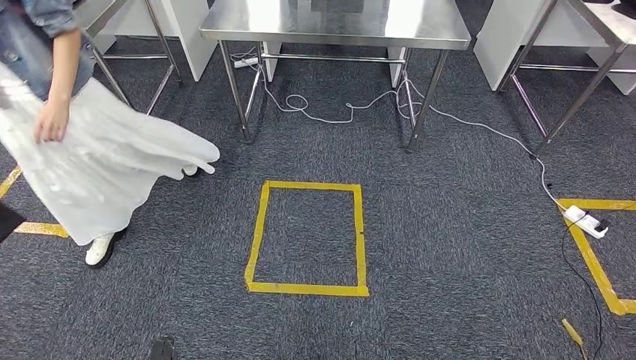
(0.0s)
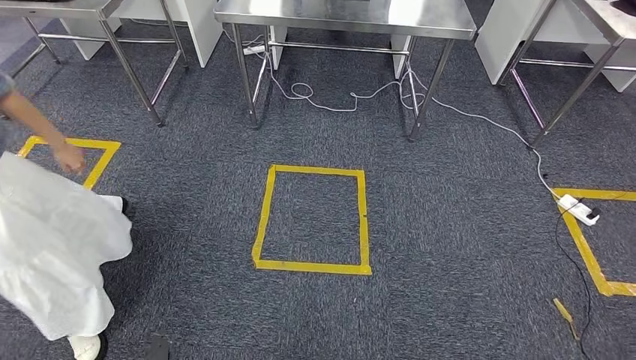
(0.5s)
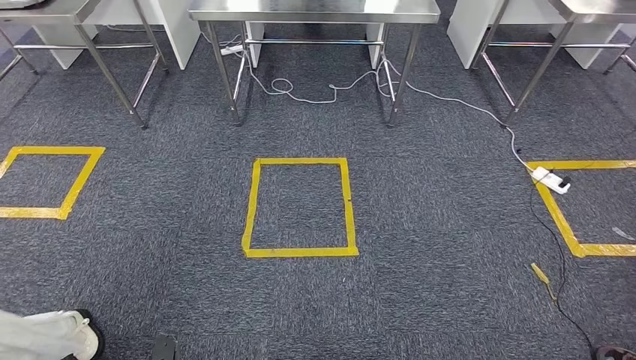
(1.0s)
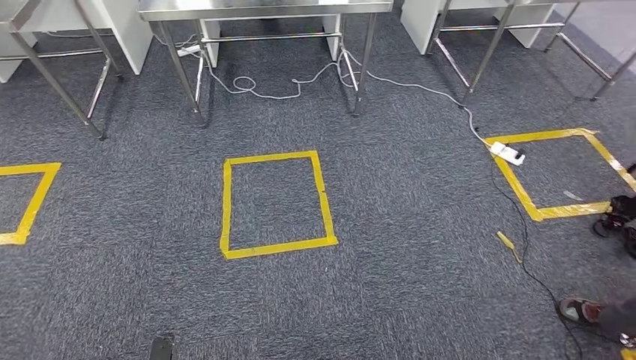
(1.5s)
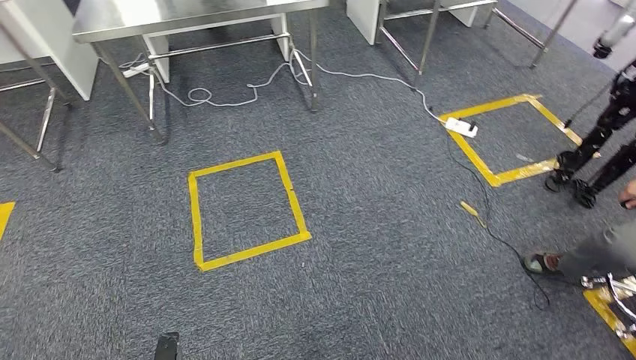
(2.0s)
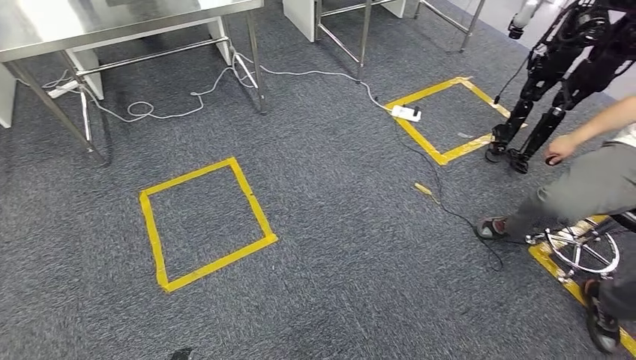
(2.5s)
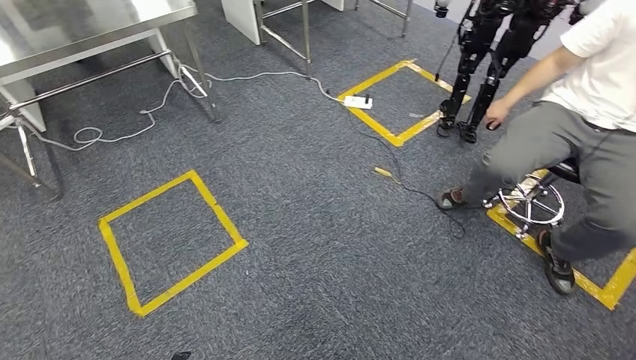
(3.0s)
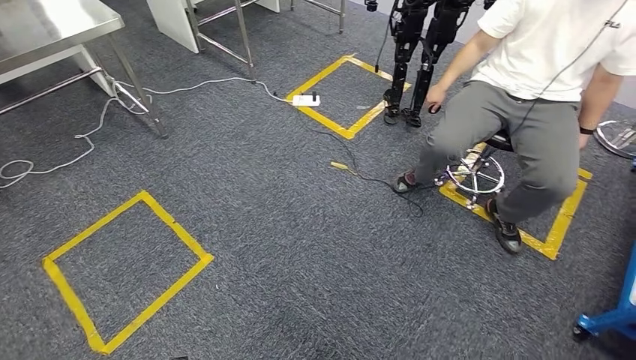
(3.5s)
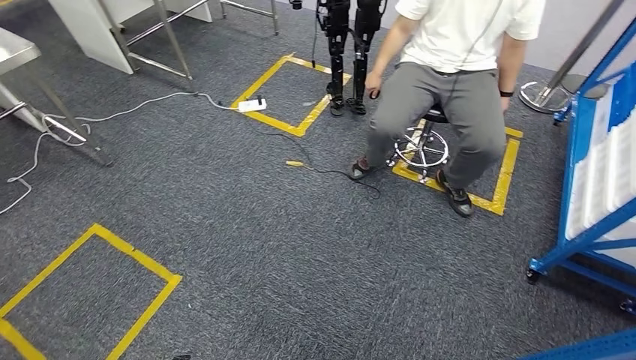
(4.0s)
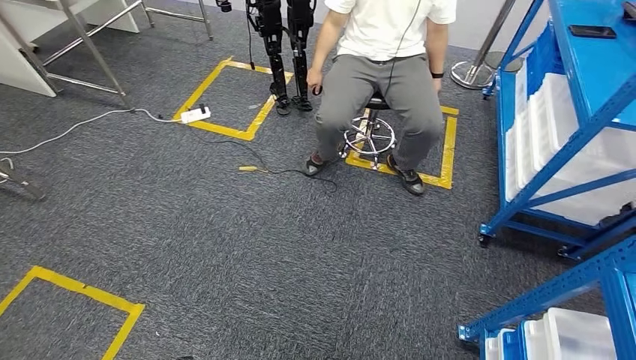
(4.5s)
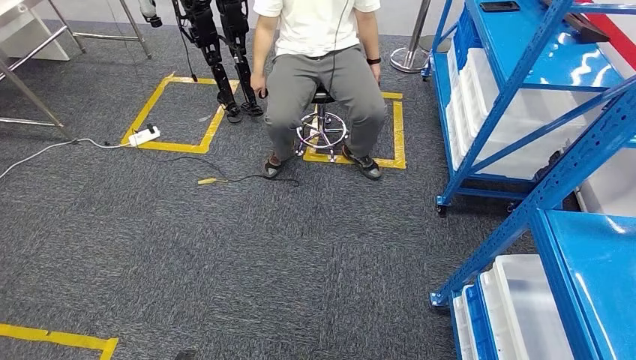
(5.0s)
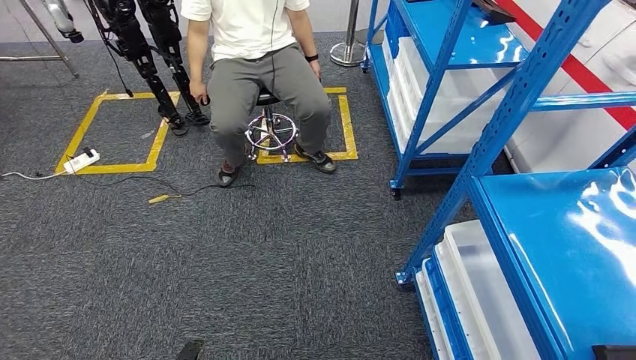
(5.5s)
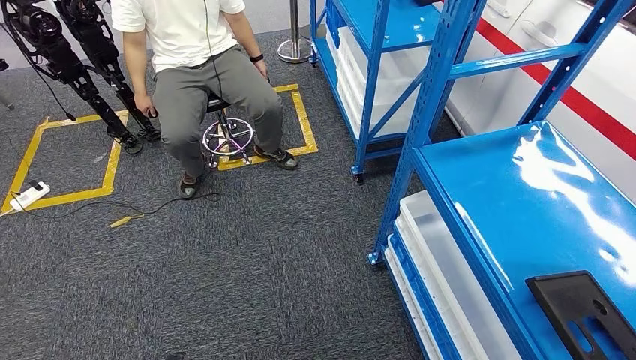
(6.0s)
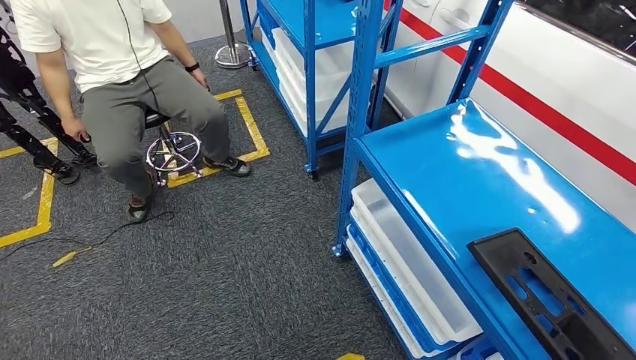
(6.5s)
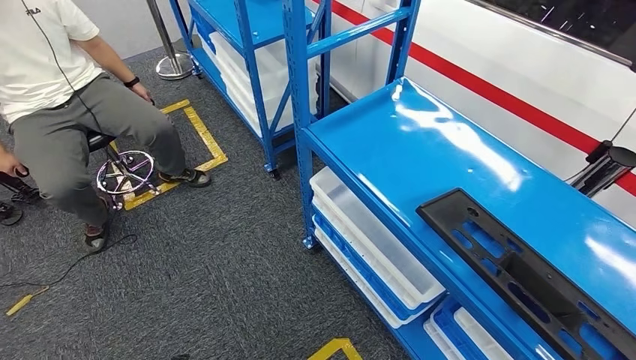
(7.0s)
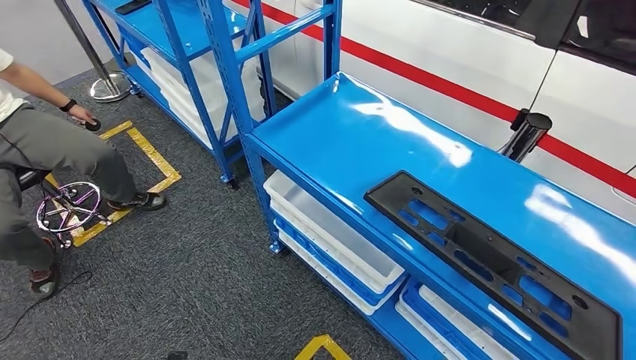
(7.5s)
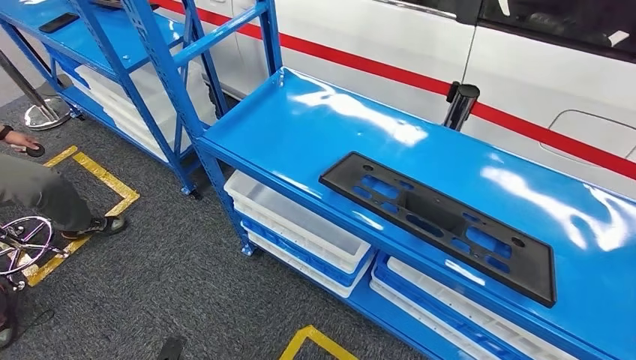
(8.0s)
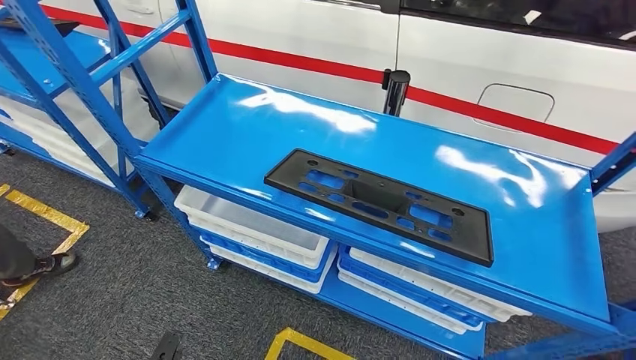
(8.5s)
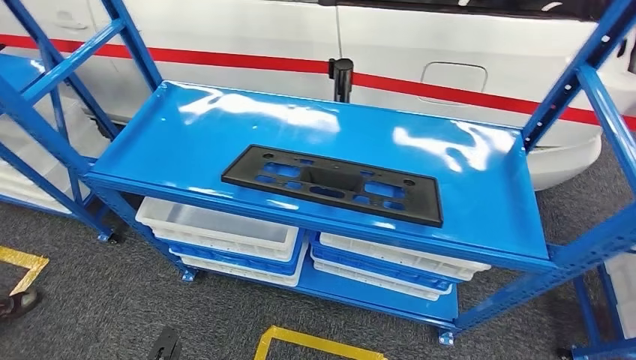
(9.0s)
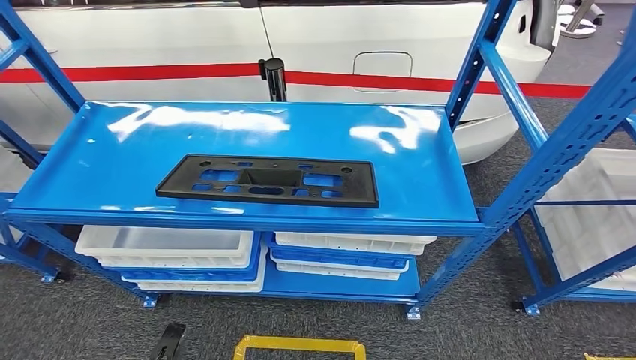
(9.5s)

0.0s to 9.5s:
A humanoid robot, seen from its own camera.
Step, 0.0s to 9.5s: Move to the initial position of the shelf.

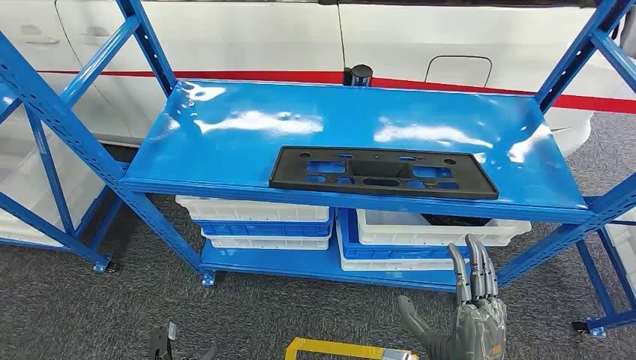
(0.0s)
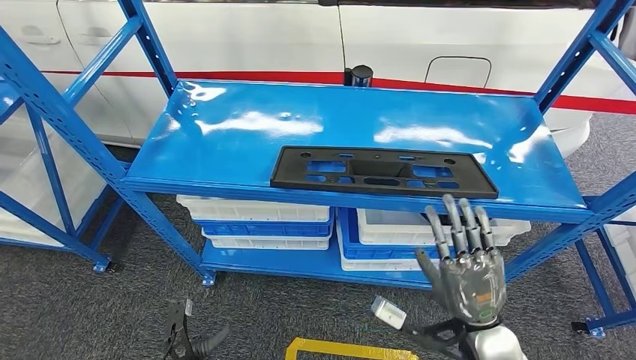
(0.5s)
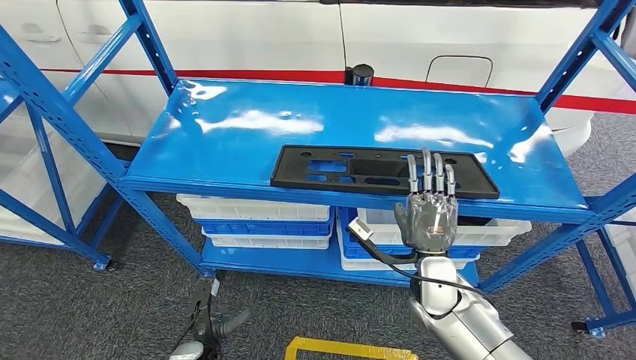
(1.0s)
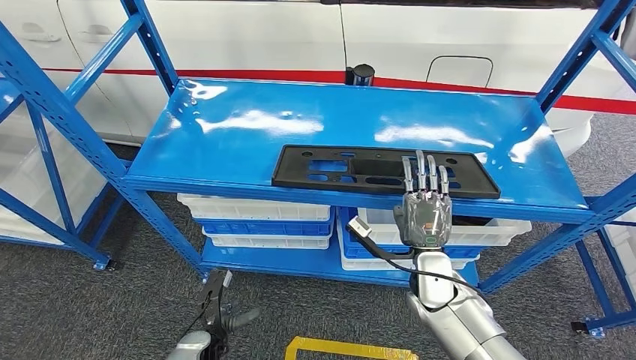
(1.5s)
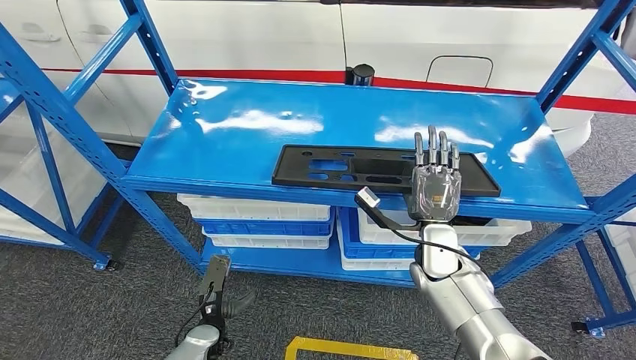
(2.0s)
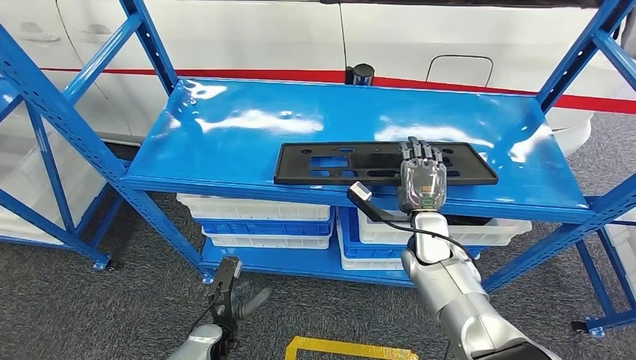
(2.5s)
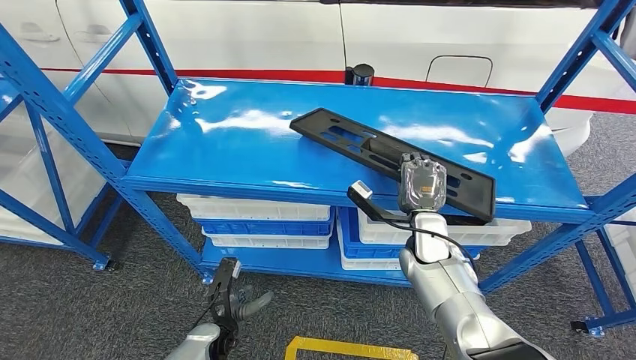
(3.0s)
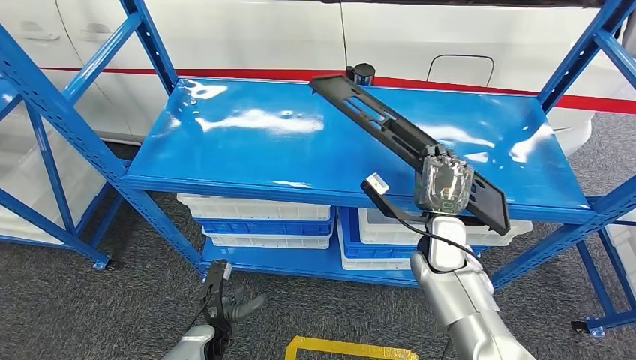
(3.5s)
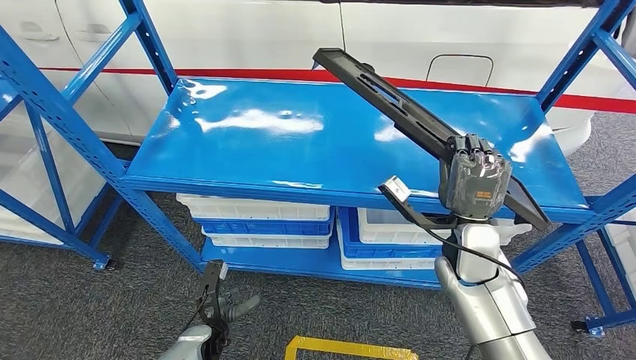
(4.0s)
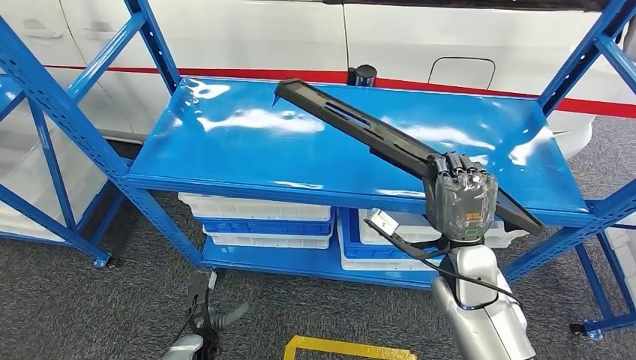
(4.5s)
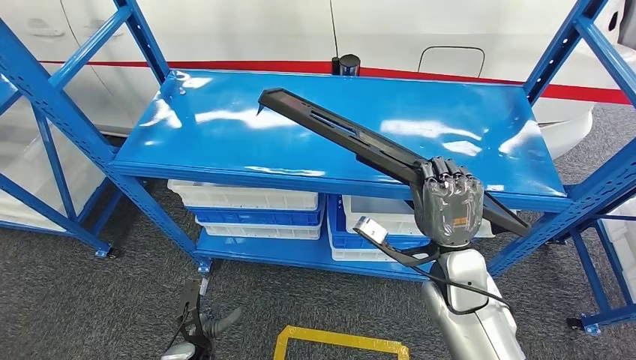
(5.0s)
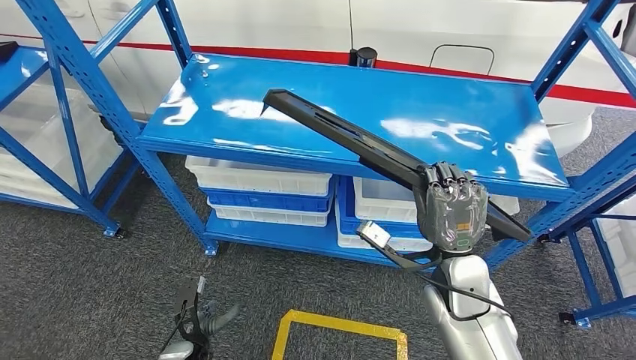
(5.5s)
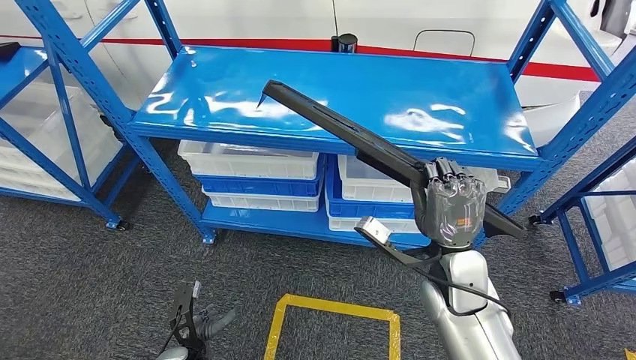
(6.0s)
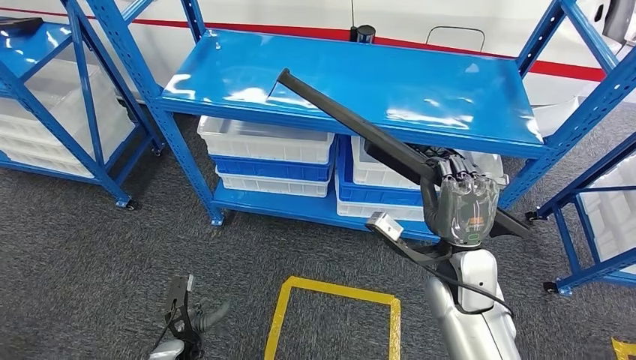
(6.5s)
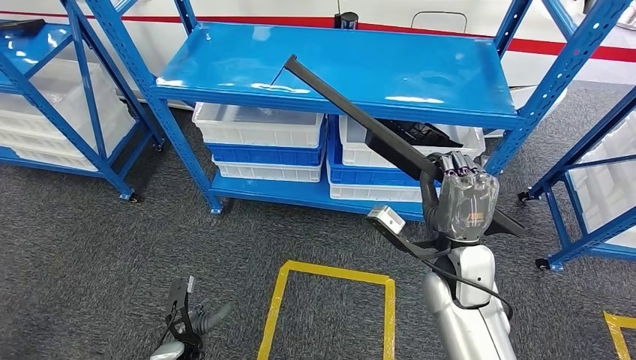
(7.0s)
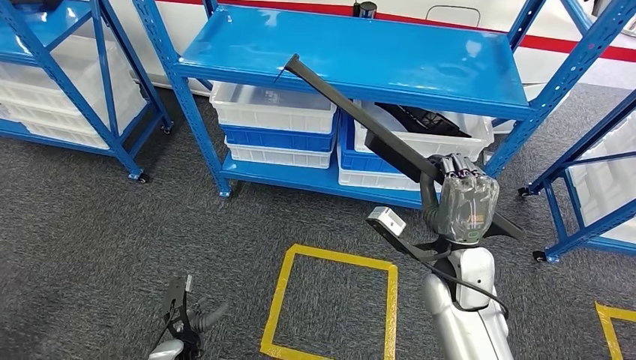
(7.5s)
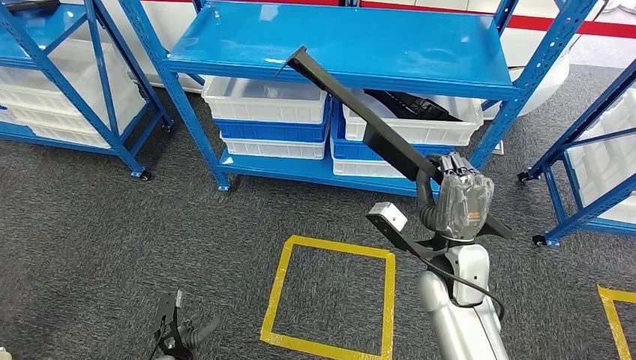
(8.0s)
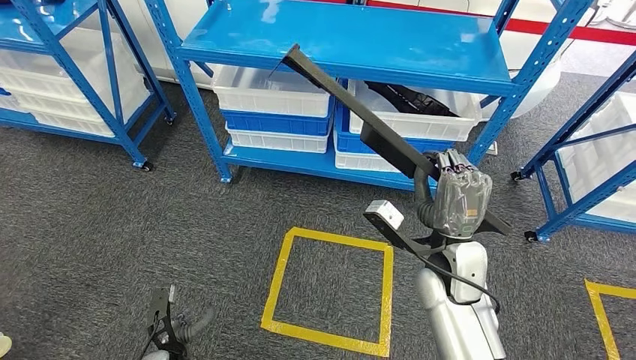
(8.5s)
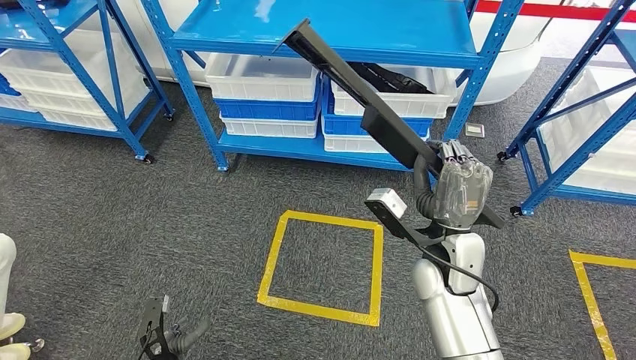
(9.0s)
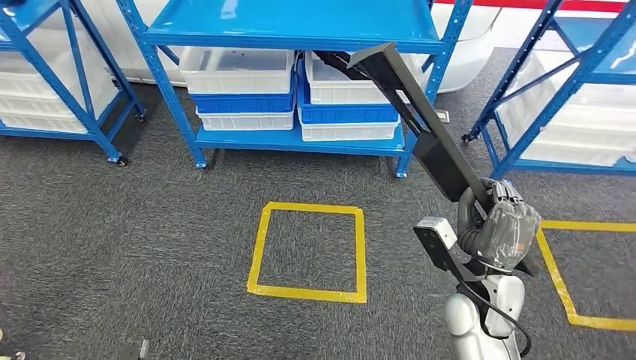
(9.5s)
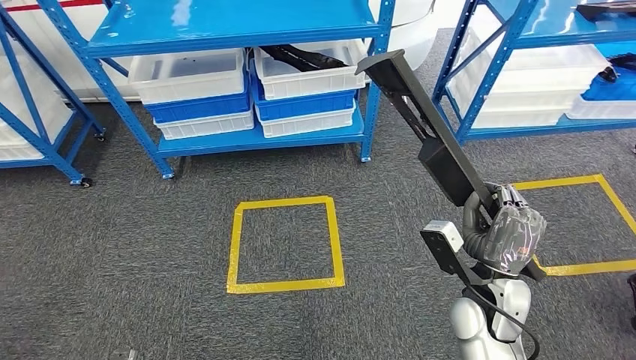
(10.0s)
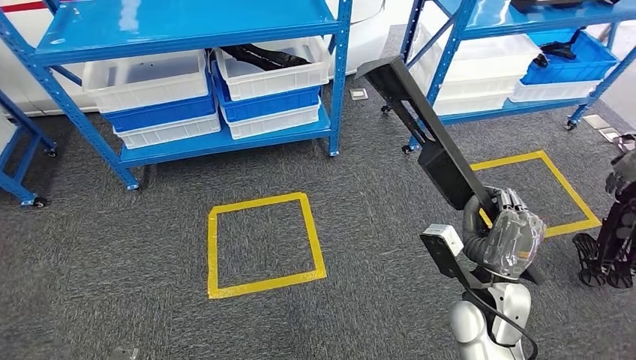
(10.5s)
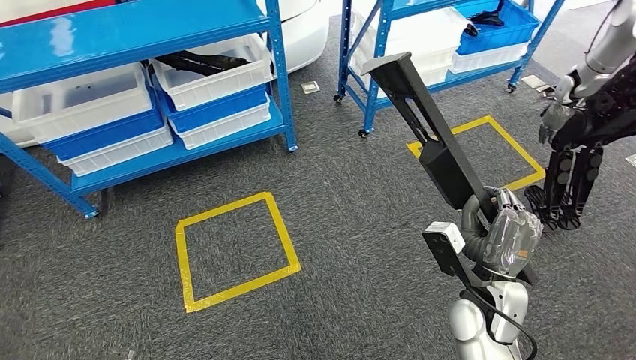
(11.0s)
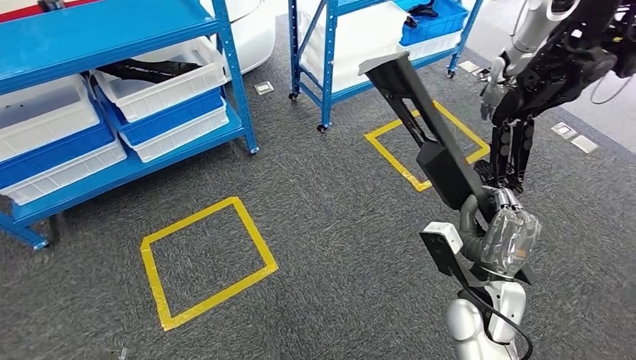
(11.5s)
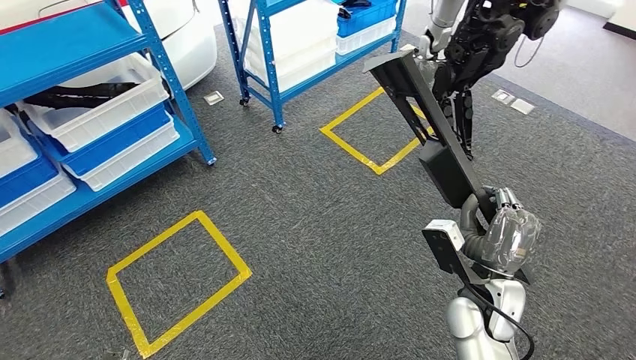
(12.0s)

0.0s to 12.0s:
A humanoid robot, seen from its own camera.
Step, 0.0s to 6.0s: Pick up the large material from the shelf.
2.0s to 4.0s: The right hand is displaced upward by roughly 5 cm.
